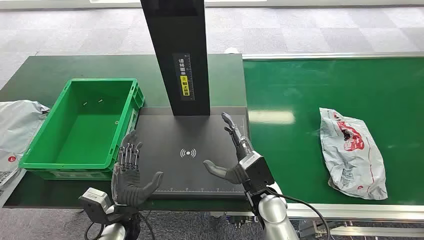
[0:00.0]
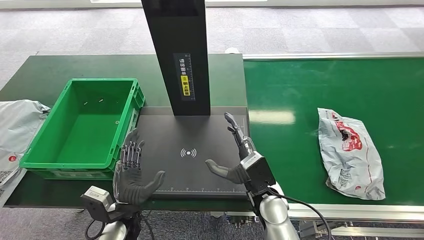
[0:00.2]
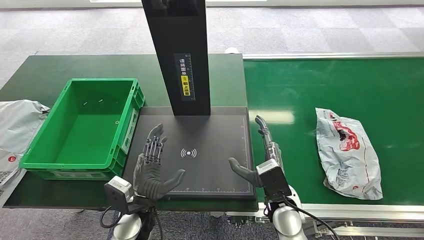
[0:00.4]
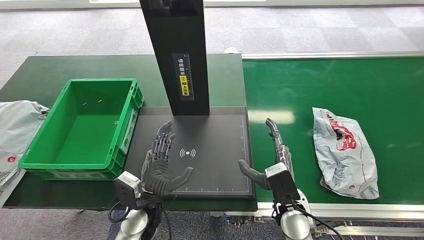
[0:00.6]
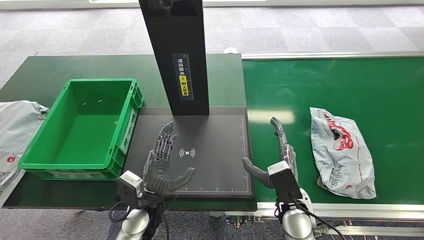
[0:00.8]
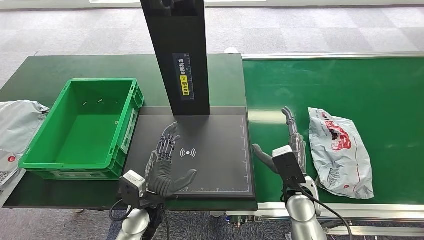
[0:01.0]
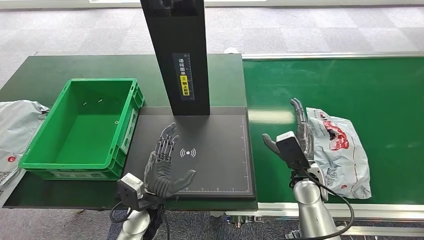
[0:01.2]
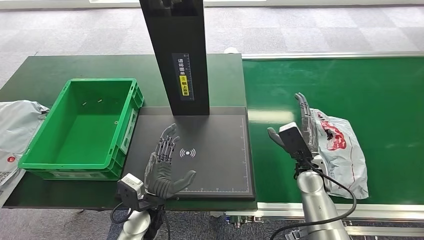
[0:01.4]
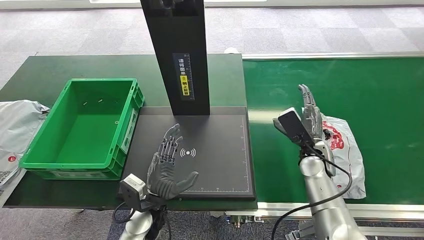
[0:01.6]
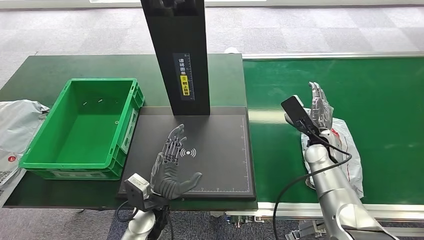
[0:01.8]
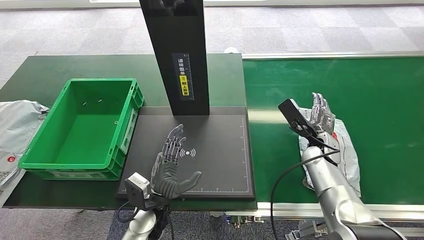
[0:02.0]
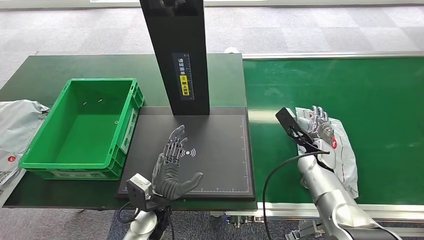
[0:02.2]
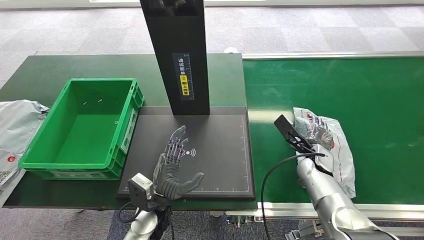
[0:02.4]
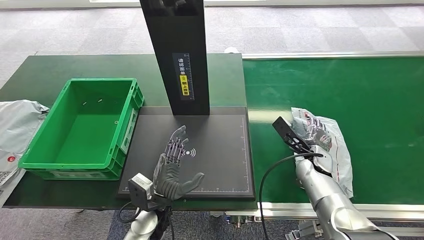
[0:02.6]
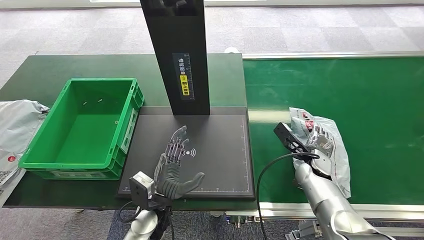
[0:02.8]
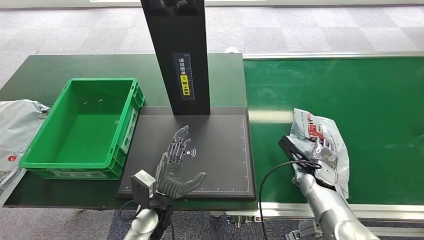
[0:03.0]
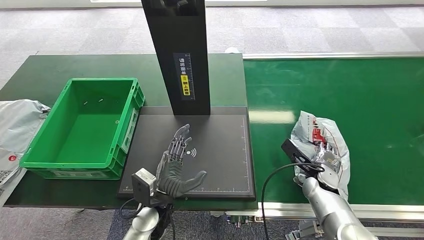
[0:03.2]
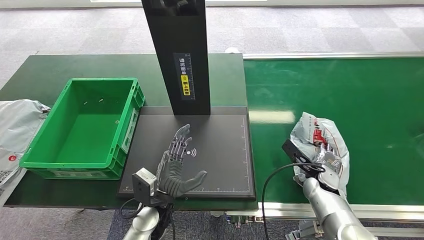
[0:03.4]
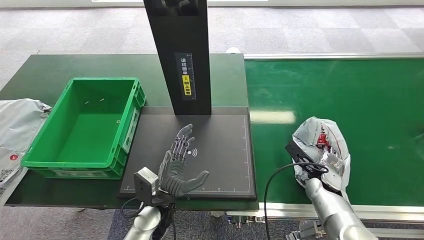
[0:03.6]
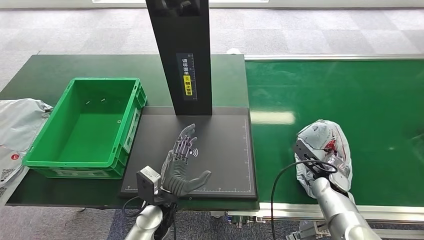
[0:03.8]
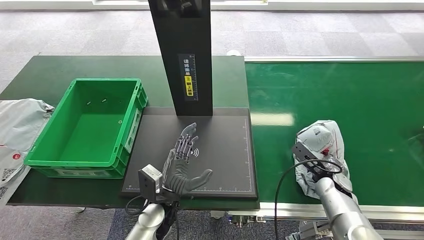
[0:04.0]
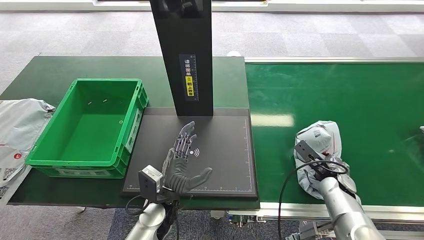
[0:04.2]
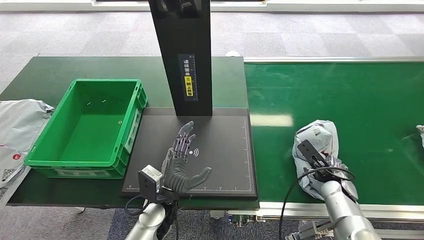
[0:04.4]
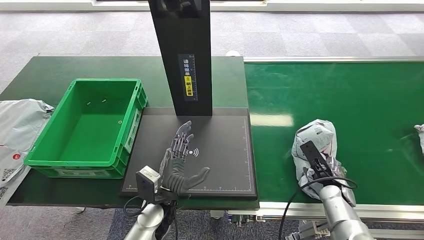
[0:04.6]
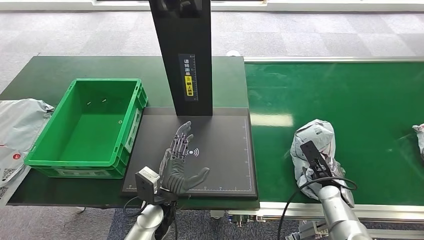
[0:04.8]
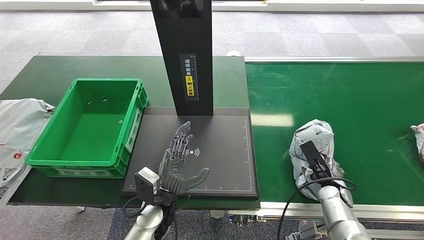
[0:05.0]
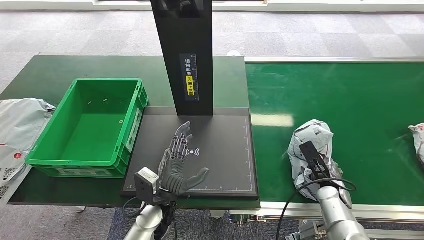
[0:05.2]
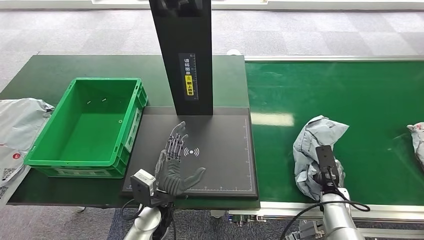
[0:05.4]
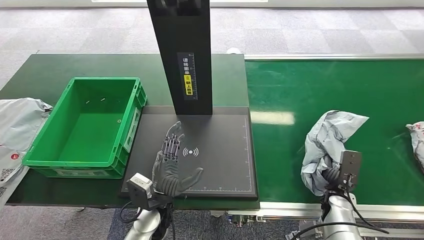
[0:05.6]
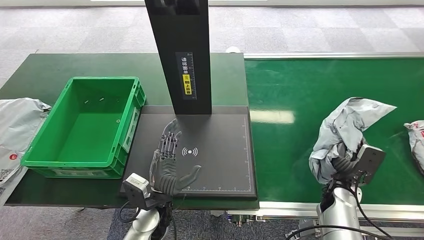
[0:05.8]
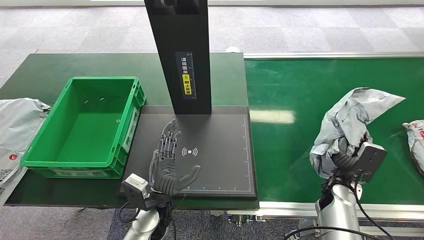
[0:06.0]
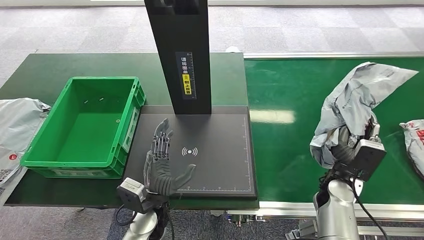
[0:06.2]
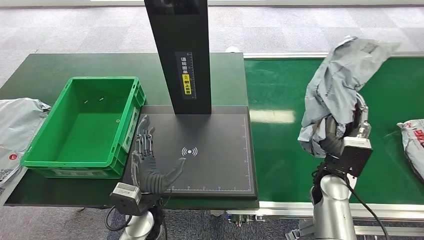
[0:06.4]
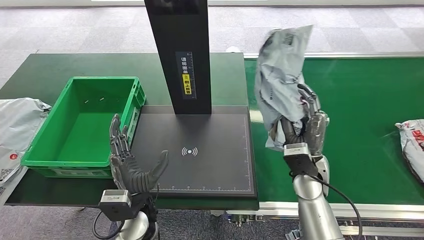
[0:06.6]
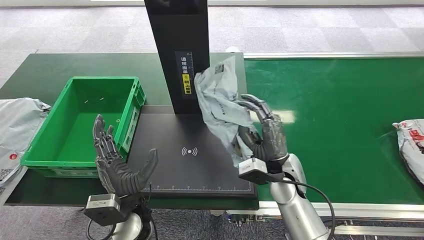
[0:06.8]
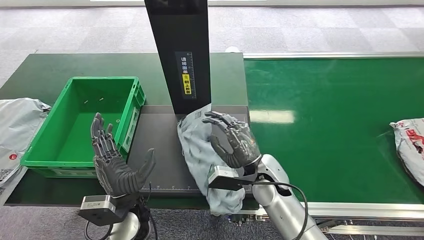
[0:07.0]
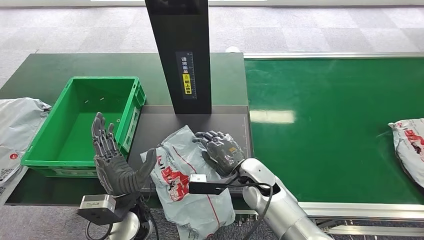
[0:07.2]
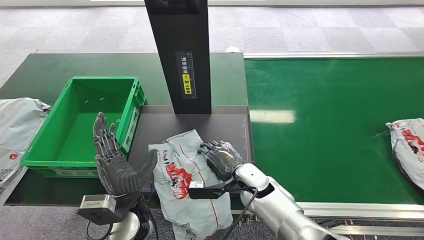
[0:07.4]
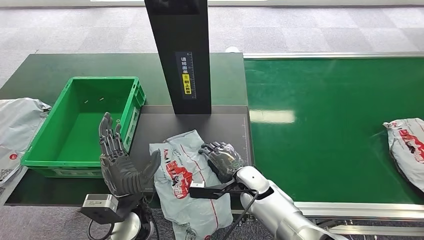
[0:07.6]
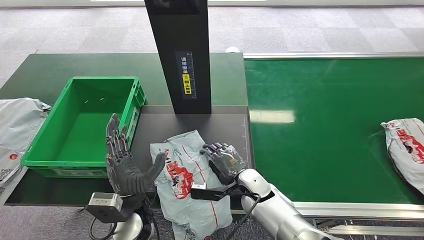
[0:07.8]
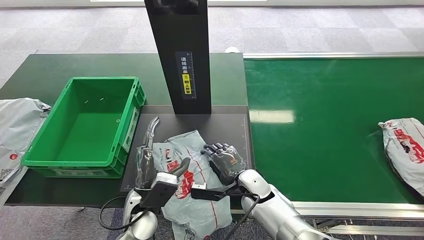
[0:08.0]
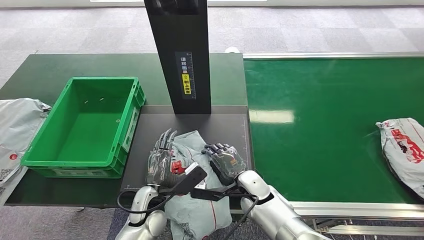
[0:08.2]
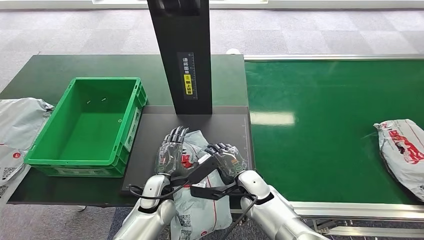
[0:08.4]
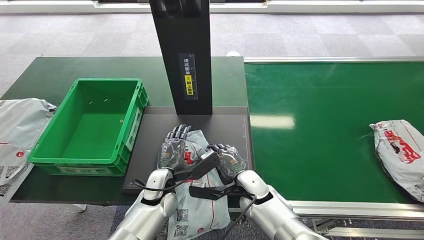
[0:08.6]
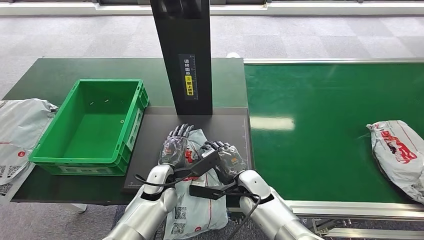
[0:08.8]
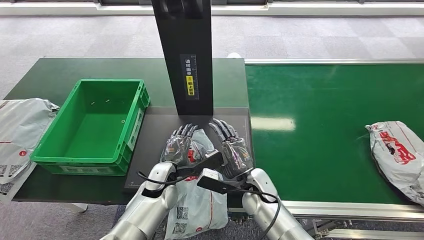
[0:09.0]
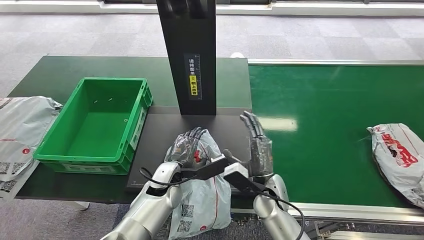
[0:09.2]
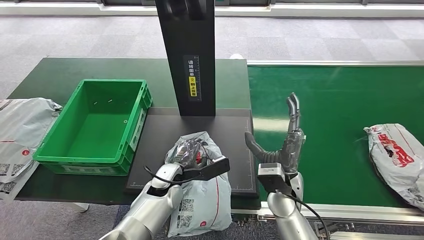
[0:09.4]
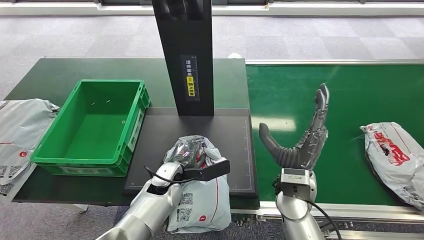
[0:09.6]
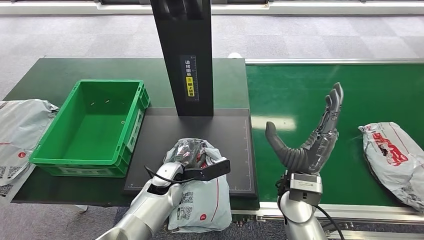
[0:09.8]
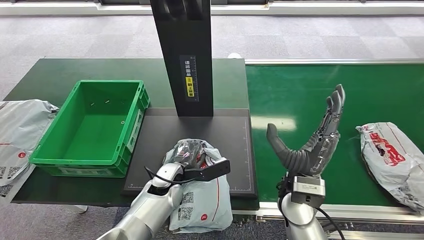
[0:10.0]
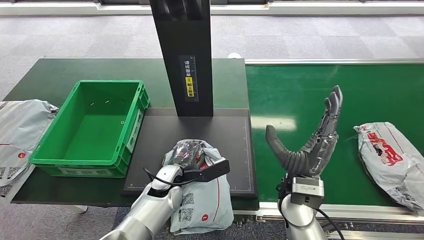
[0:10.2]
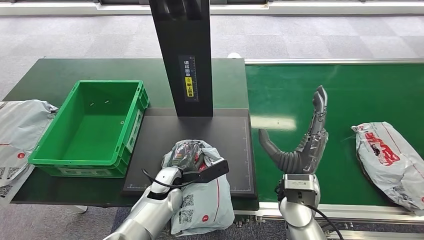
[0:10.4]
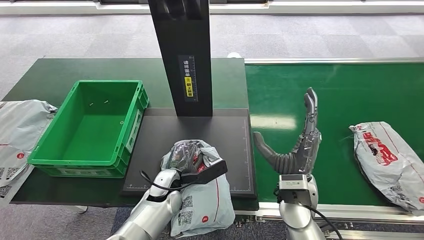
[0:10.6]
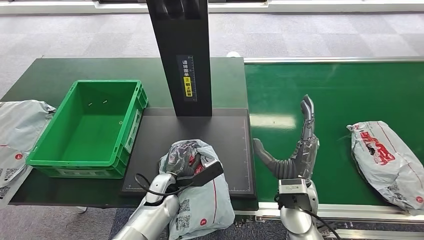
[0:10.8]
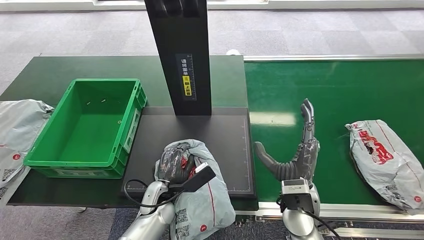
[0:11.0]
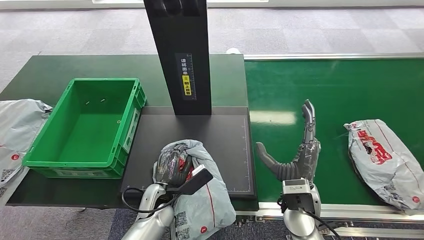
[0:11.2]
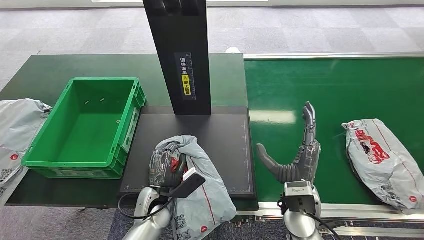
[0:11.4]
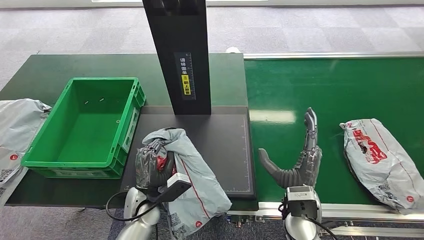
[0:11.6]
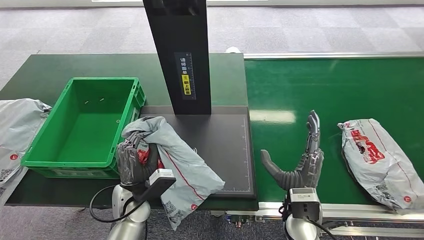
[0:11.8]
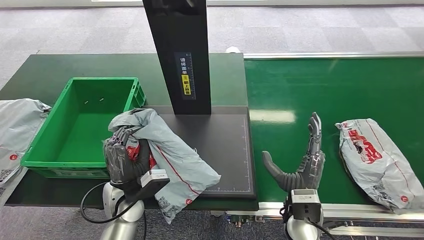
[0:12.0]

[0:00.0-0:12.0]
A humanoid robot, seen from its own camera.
Task of the whole recording: Weigh the package on the weighing device and place it in the left basket.
Step, 0:00.0 to 0:06.4: Pick up the package from the conveyor belt.
Step, 0:06.6 to 0:07.8: Place the package onto the inbound machine.
Step, 0:08.2 to 0:11.8: Pick up the package from the inbound machine.
0:01.6 to 0:03.0: The right hand shifts roughly 5 cm downward.

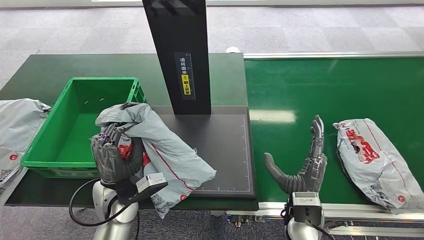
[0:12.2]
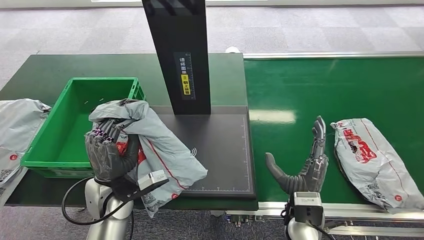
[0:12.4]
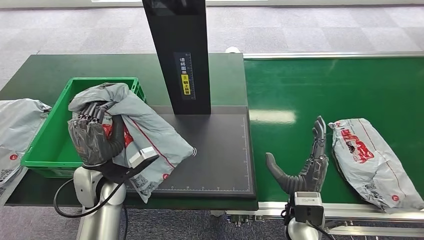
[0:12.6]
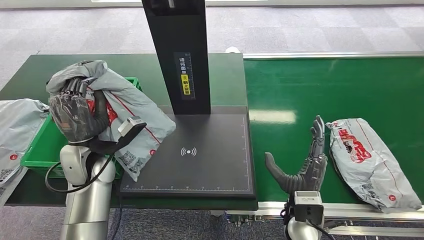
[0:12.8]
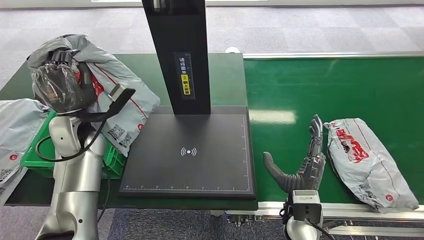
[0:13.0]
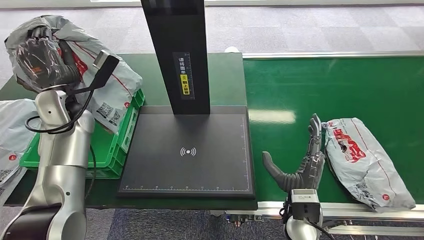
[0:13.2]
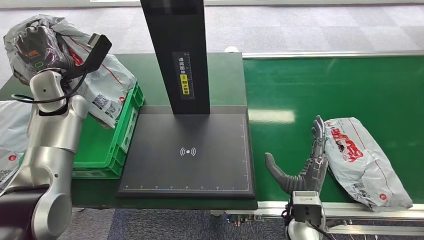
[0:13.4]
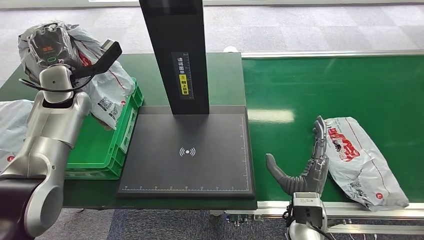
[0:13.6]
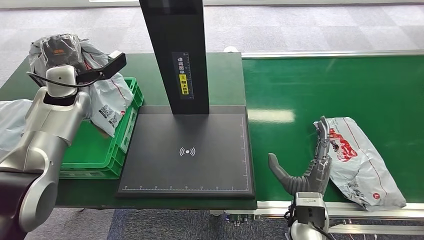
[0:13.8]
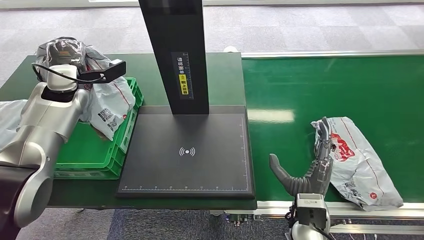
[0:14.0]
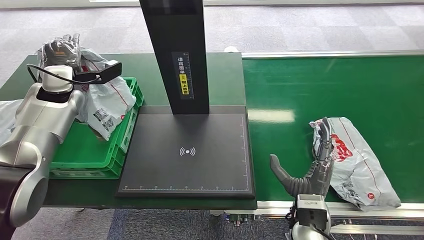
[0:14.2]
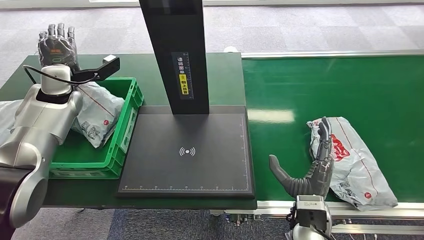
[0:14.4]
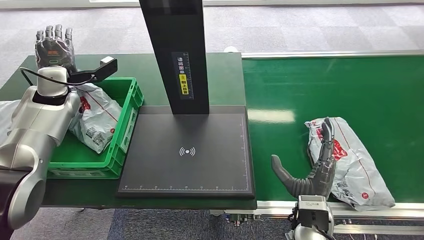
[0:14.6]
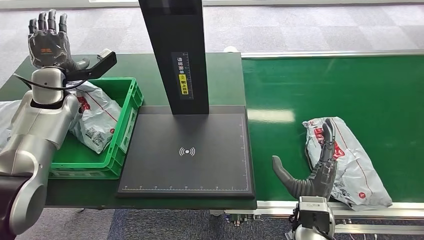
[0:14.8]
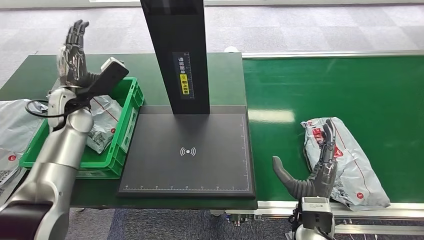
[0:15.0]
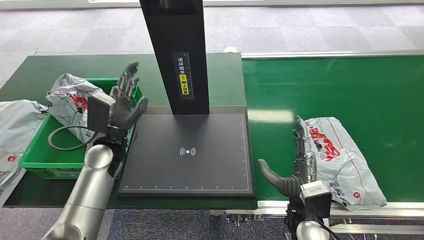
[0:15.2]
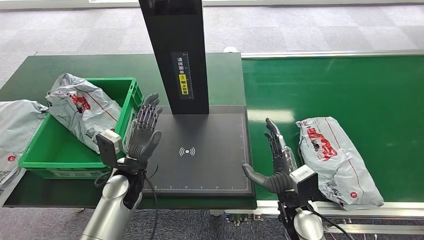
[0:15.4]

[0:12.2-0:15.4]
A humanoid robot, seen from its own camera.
Task of the whole recording: Weigh the package on the weighing device and place it in the left basket.
Step, 0:12.2 to 0:15.4: Place the package into the parcel locker.

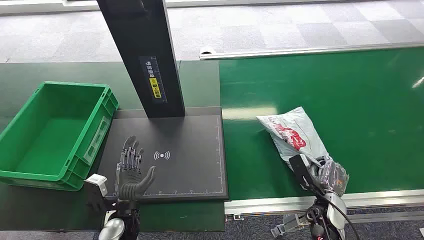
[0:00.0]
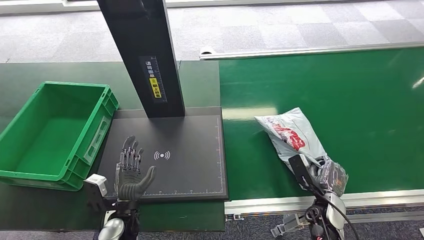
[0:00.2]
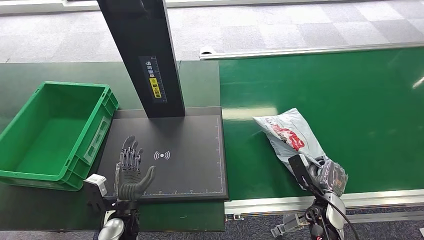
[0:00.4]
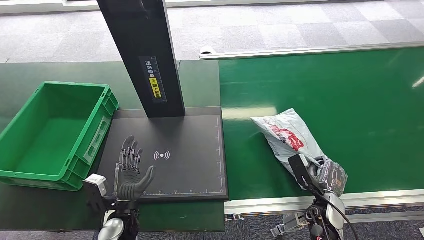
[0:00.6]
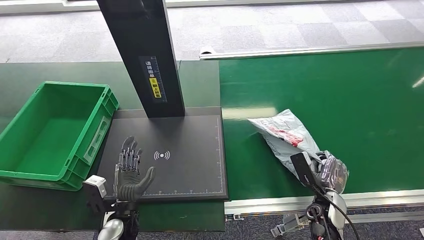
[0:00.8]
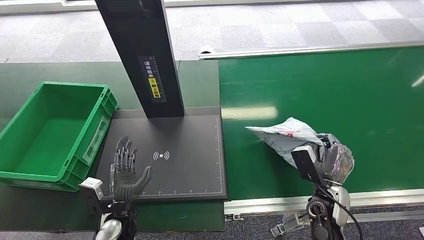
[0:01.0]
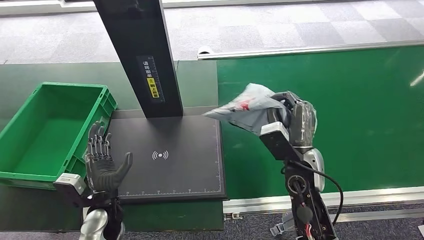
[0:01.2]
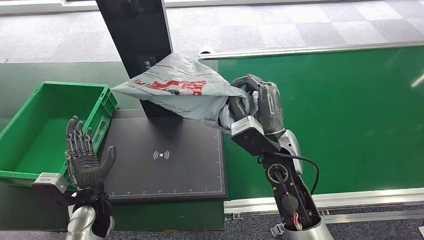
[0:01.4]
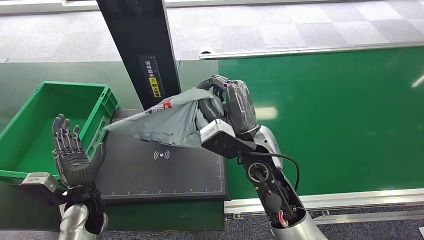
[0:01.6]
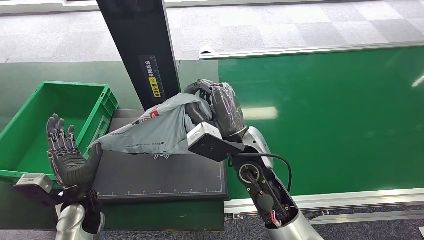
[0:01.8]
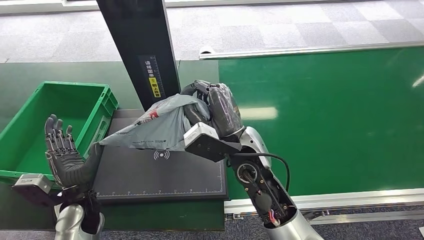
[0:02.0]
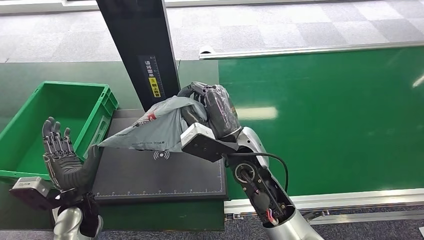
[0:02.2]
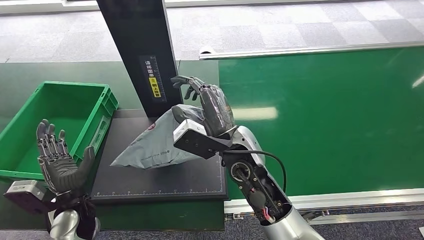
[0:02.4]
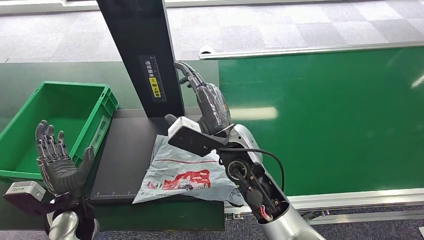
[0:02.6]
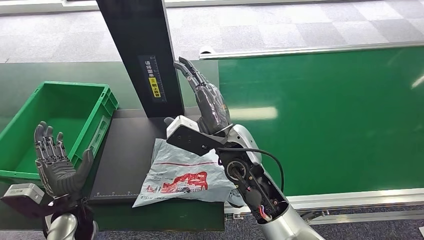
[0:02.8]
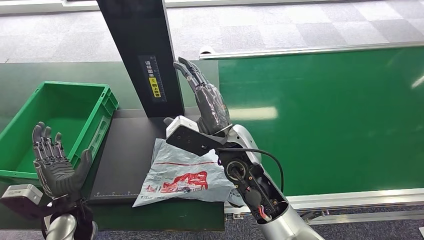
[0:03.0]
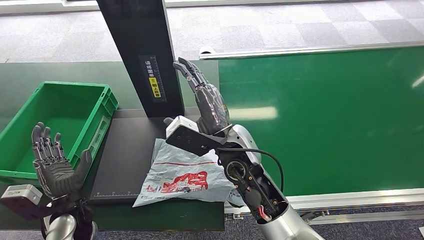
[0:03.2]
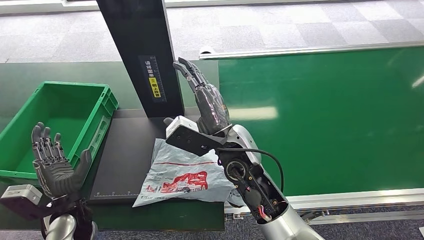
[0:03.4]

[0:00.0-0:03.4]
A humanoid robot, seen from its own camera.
Task of the whole recording: Weigh the package on the weighing device and place it in the left basket.
Step, 0:00.0 to 0:01.4: Pick up the package from the conveyor belt.
0:01.6 to 0:03.4: The hands move only a little.
